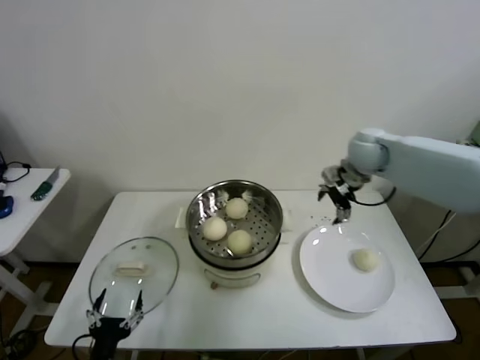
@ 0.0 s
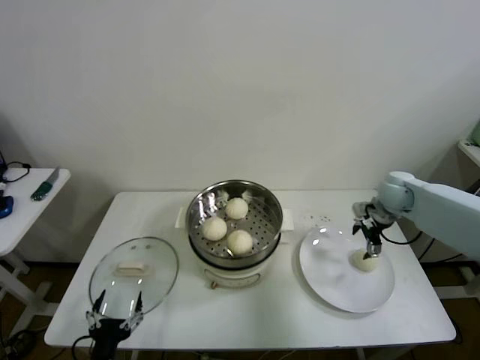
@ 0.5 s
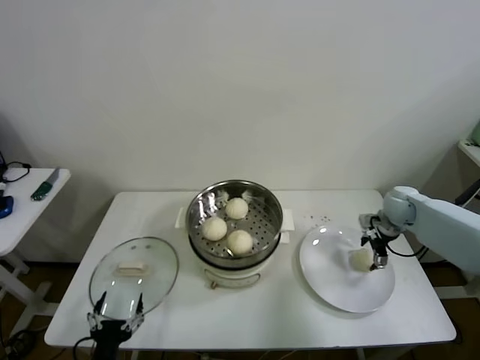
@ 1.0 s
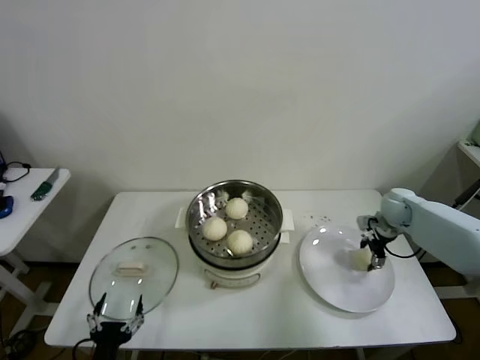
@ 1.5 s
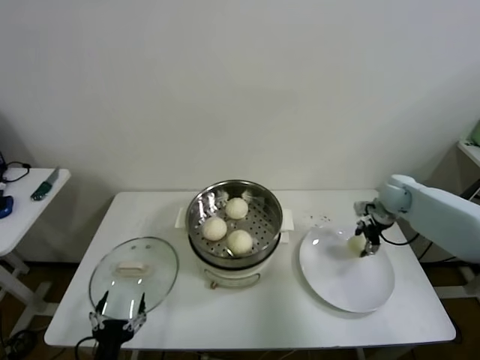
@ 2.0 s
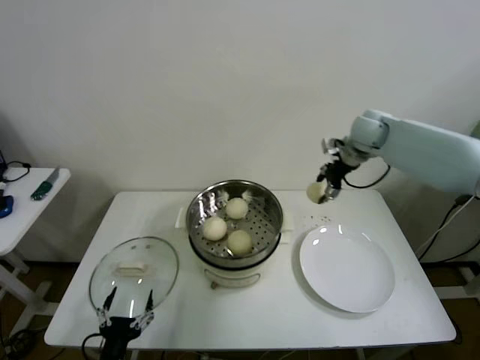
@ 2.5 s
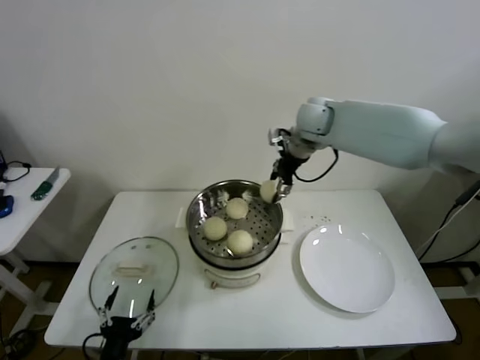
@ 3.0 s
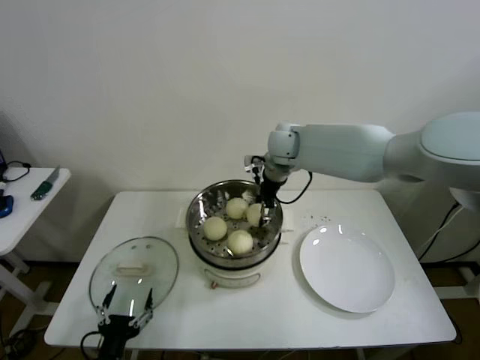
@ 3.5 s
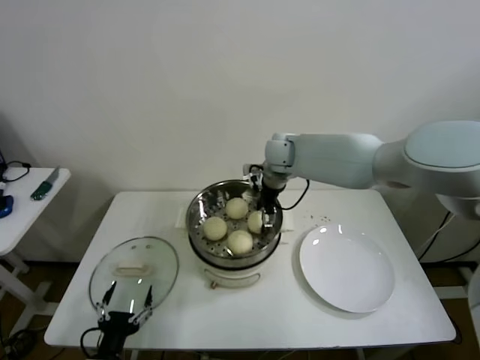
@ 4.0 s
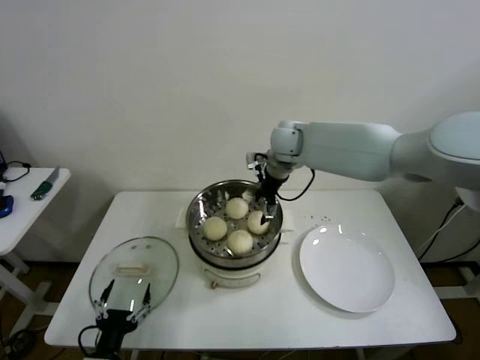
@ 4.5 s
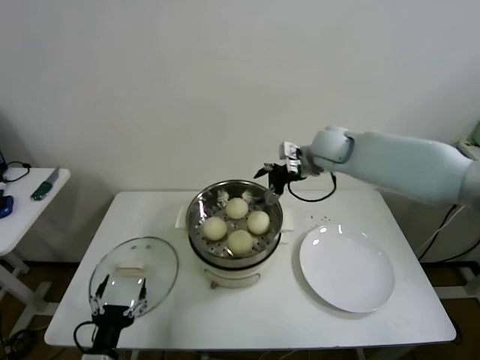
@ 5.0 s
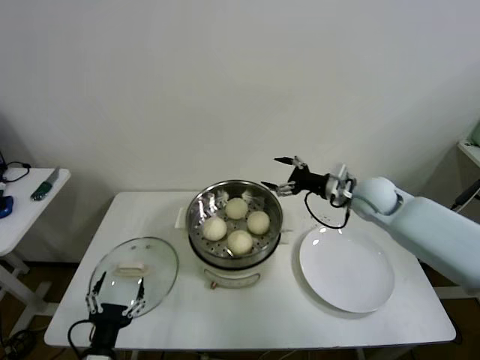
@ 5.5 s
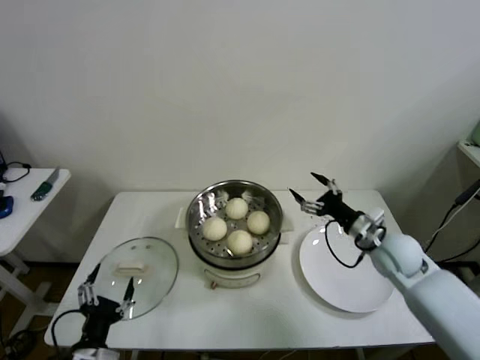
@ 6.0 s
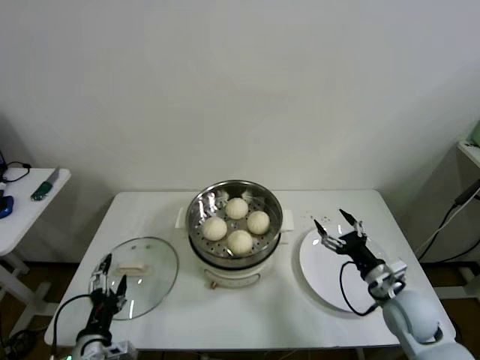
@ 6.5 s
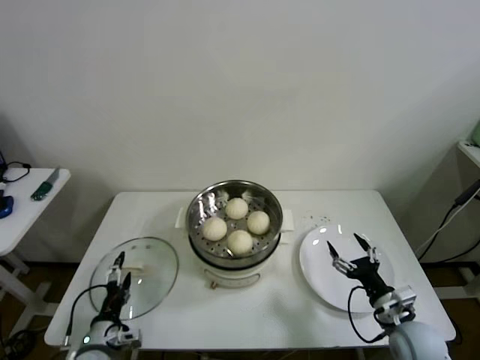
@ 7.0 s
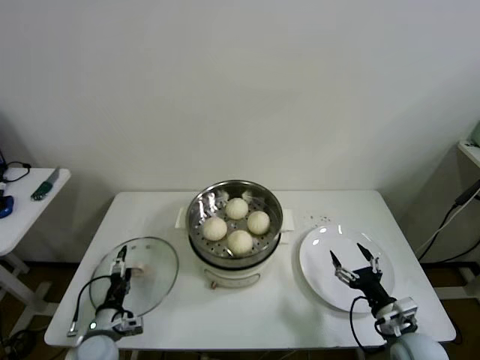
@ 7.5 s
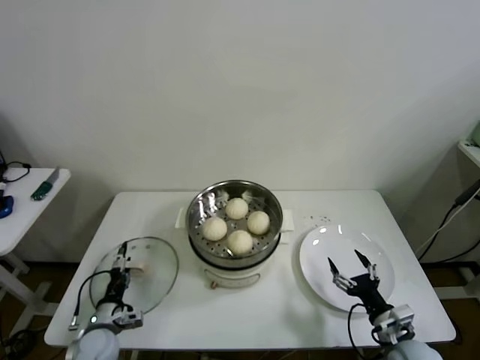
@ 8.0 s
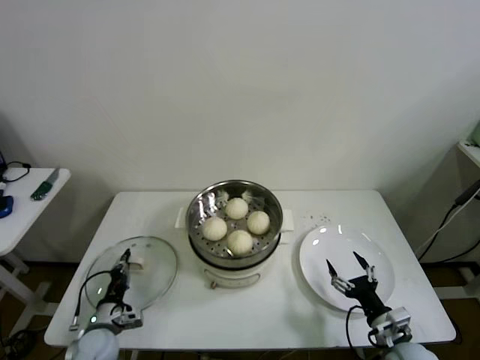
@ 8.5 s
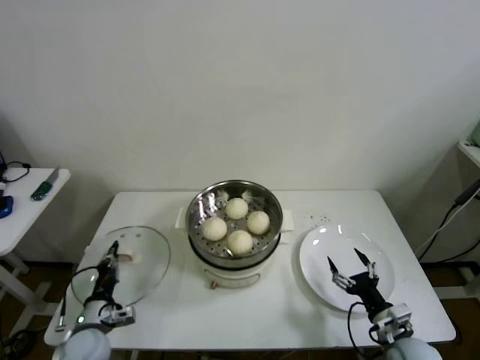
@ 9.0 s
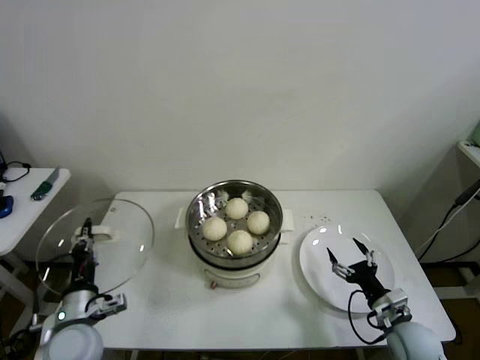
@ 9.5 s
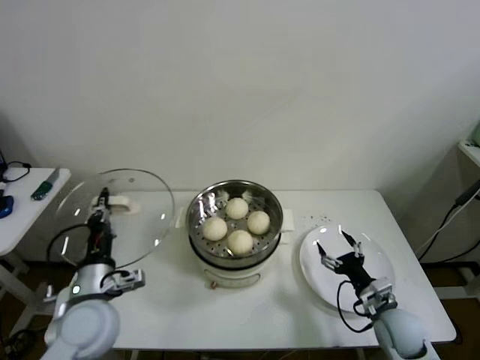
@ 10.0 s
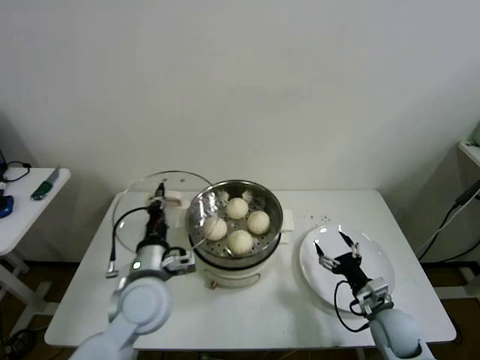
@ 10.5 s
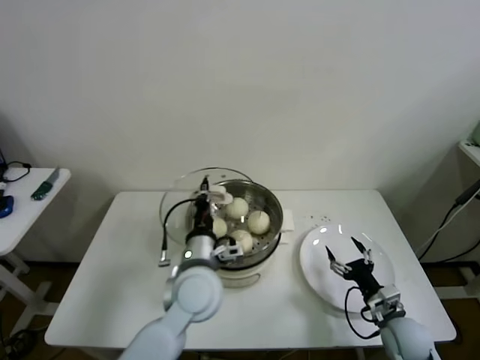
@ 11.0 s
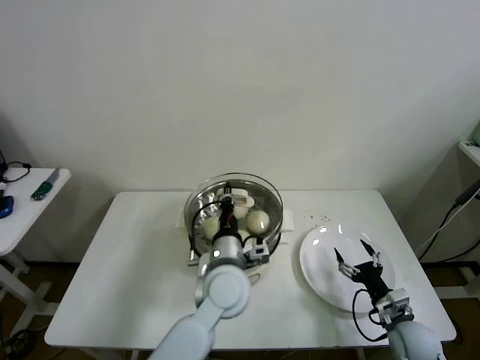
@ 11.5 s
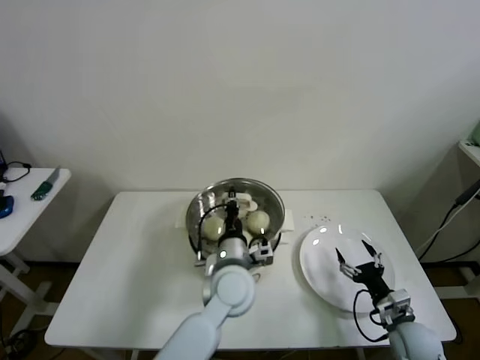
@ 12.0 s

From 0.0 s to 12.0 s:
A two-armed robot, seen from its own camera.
Step, from 1.5 s to 3.5 s: Place the baozi on the steamer with right gripper.
Step, from 4.5 s to 8.5 s: Grasp the pot lid with left gripper.
From 0.0 s to 2.0 s: The right gripper moves downward and to the right, about 20 cm, and closes up.
From 2.0 s to 4.0 s: The right gripper shifts roughly 30 cm to the left, and opens.
From 4.0 s to 6.0 s: The right gripper goes about 35 cm to the right, backward and downward, and opens its fingers.
From 6.0 s to 8.0 s: The right gripper is displaced backward and downward by roughly 25 cm, while the left gripper moves forward and downward, some 15 cm.
From 8.0 s to 10.0 s: The right gripper shifts about 5 cm forward; the left gripper goes some 20 cm upward, and closes.
From 10.0 s to 12.0 s: The left gripper heads to the right, covering about 25 cm.

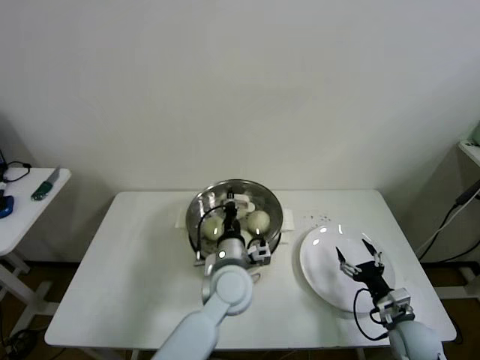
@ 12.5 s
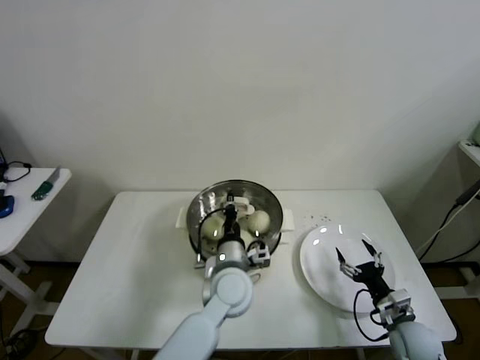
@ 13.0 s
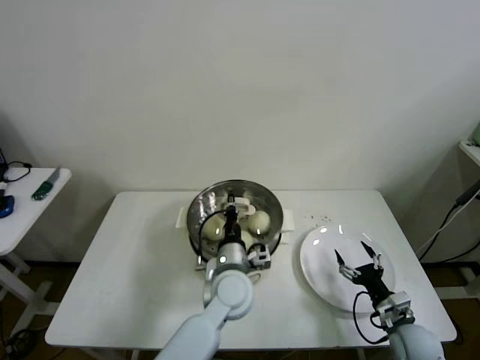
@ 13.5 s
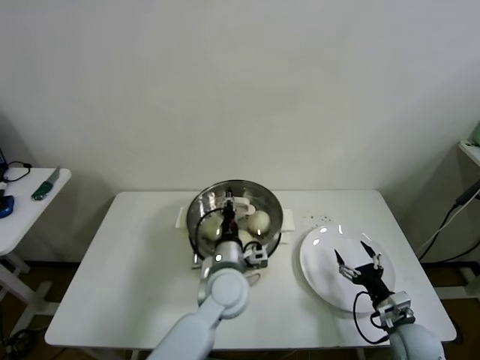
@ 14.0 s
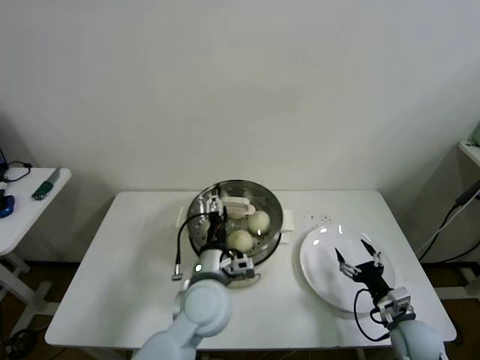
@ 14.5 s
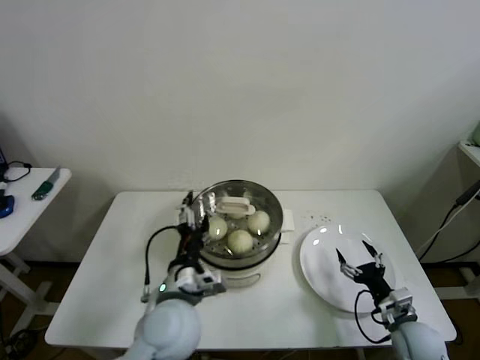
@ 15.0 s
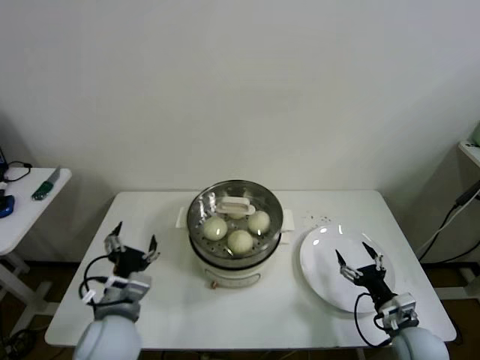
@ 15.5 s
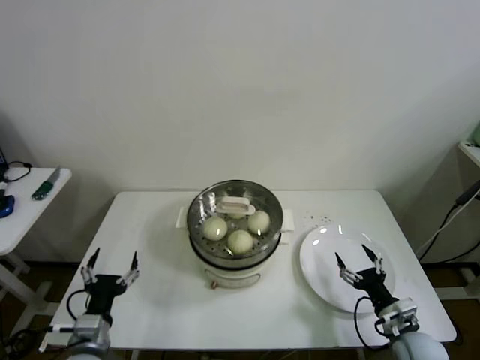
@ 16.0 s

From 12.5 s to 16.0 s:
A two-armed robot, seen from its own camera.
From 12.5 s to 14.5 s: The left gripper changes place by some 5 cm, and opens up.
From 14.5 s to 16.0 s: The left gripper heads to the left and backward, covering about 25 cm.
